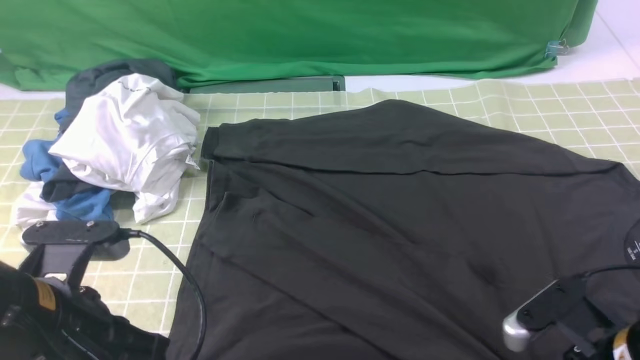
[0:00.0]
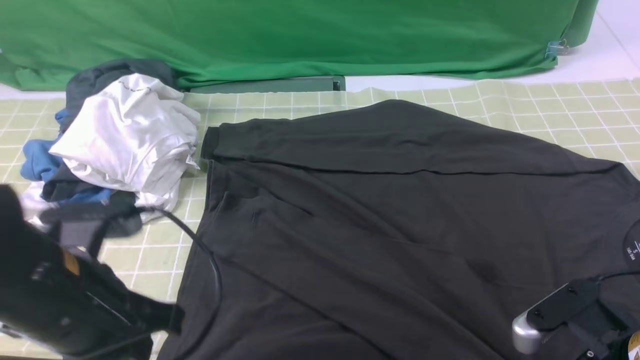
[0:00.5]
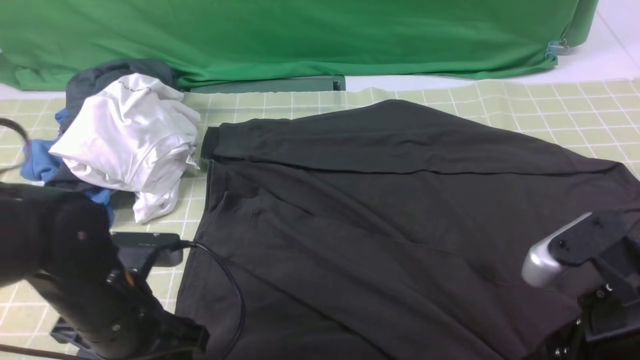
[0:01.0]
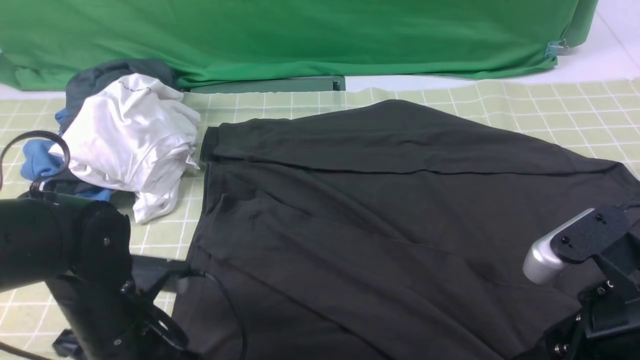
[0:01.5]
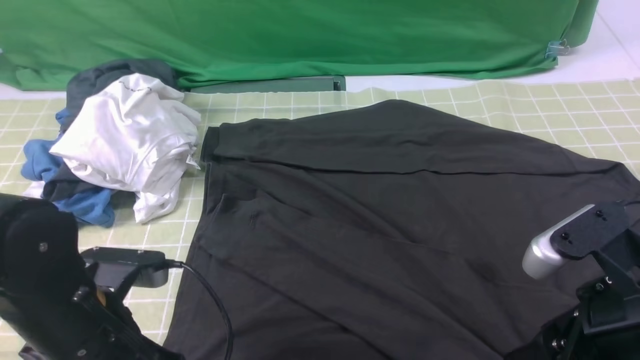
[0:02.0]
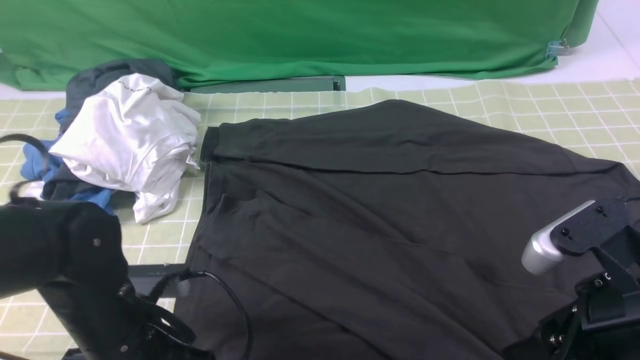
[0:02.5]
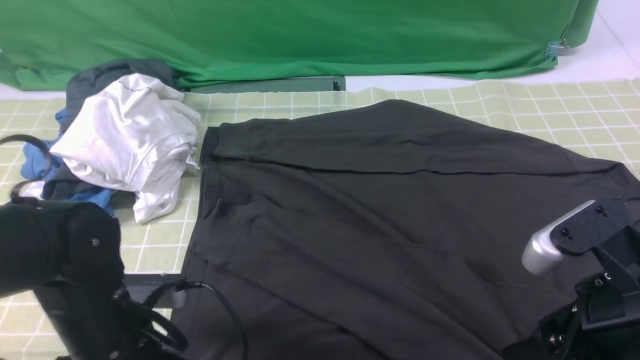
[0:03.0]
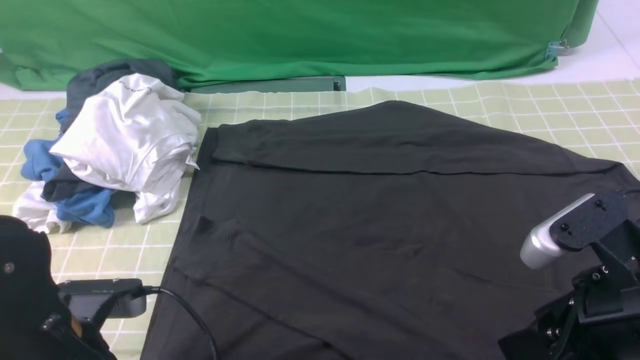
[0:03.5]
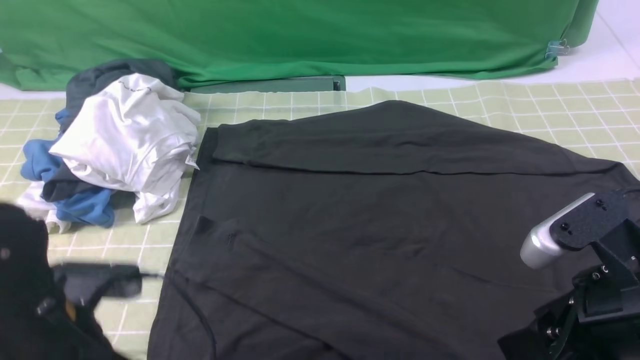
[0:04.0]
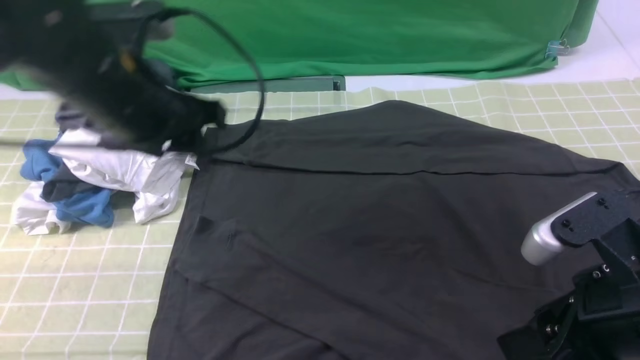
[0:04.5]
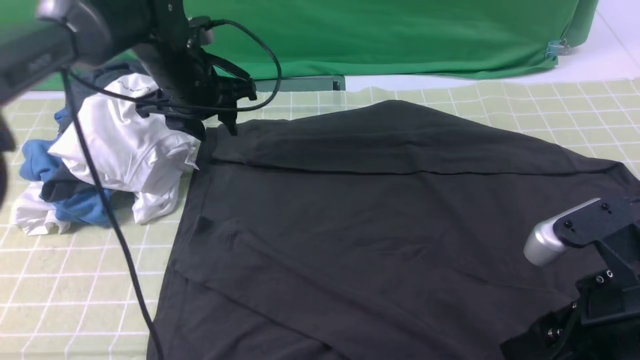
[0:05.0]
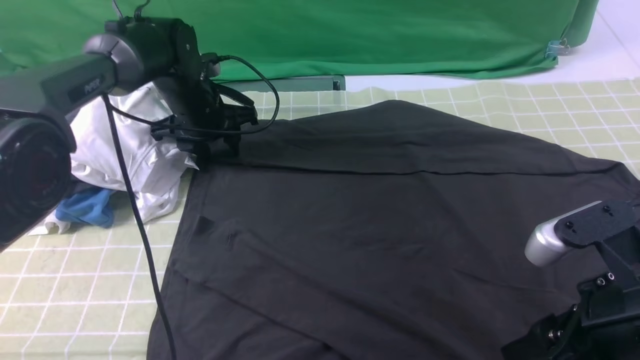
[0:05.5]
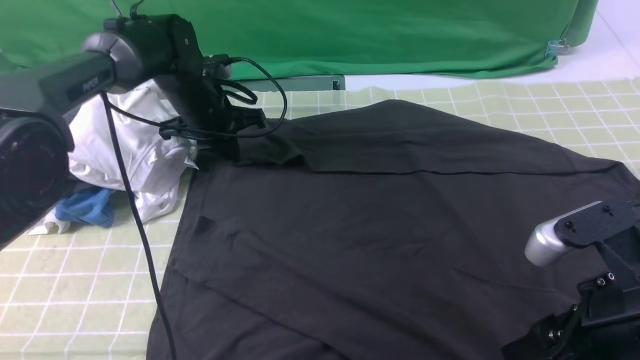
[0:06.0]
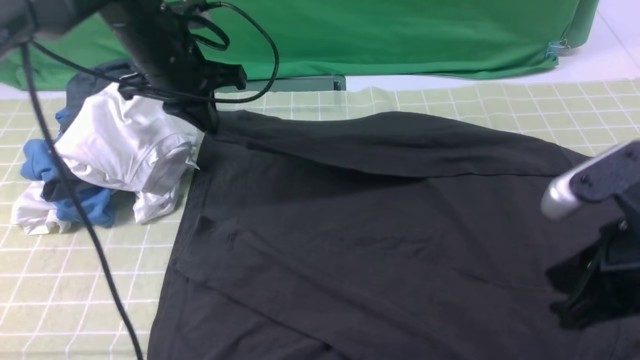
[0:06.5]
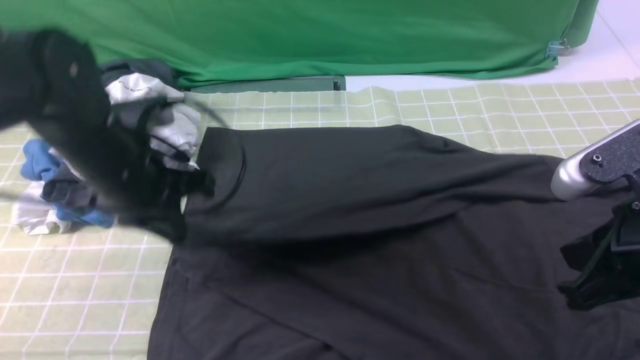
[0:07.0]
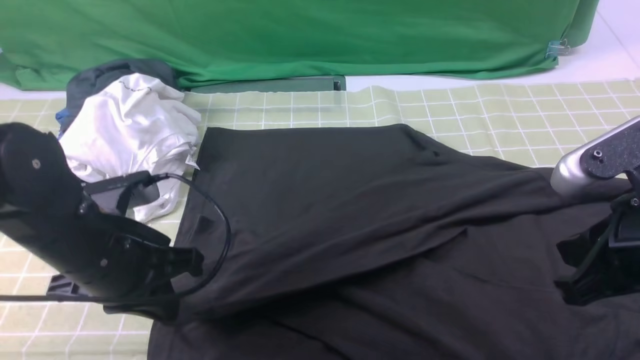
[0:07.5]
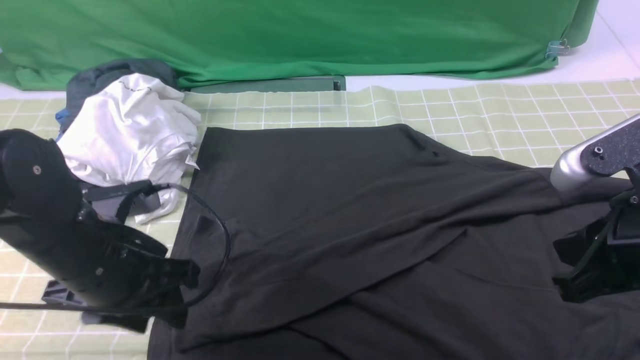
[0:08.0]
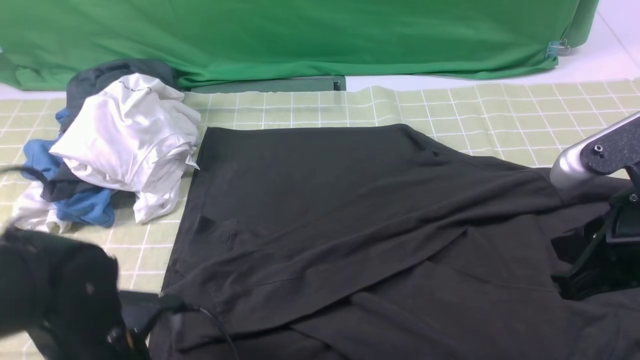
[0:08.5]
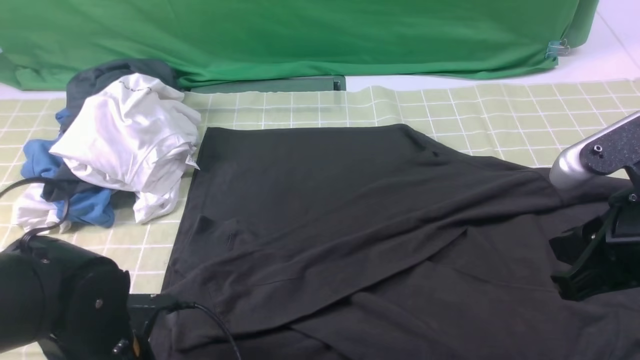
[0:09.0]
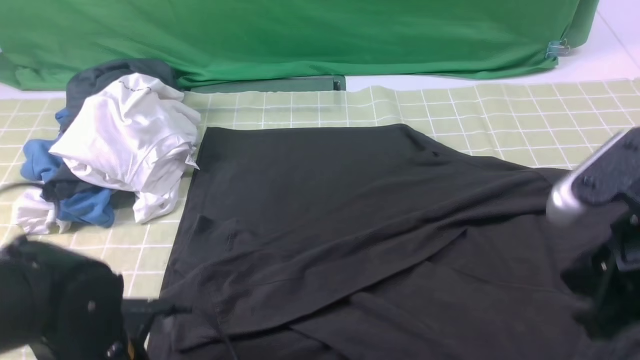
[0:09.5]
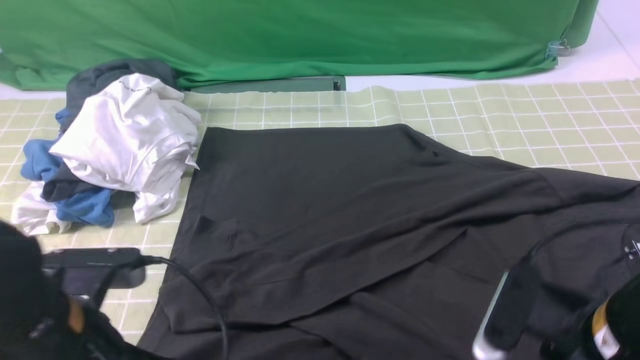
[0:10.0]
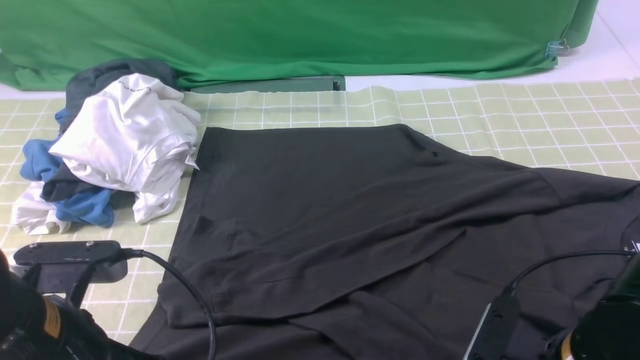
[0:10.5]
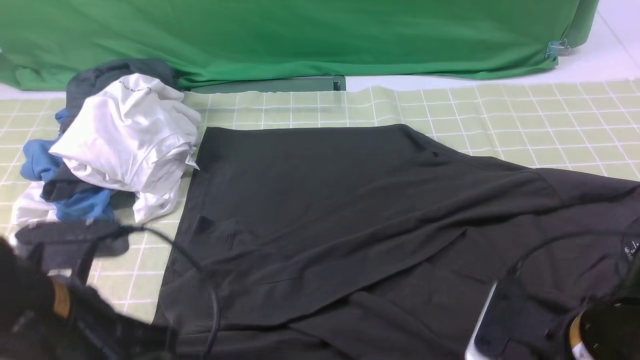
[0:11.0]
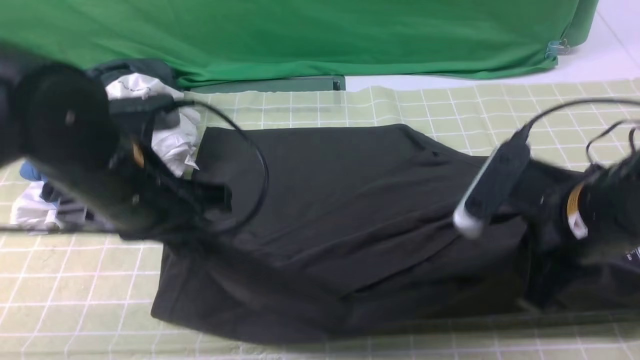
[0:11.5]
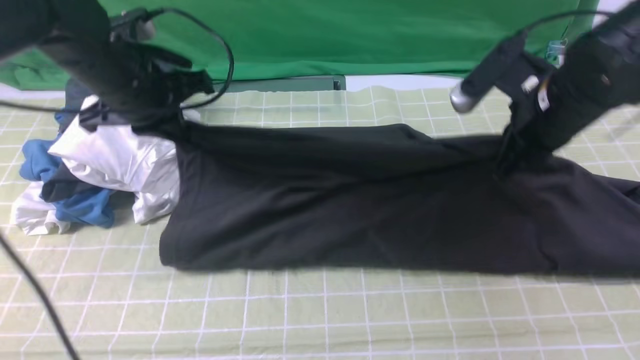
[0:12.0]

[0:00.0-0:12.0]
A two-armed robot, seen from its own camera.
Step, 0:00.0 to 0:05.5: use the left arm to clamp the cuff farthest from it.
Step, 0:06.0 to 0:08.0: use the left arm to drag and drop the cuff onto the cuff closest to the left arm.
Step, 0:08.5 to 0:10.5: use both arms simultaneously to clamp the lower edge of the clothing fabric.
0:00.0 to 0:02.0: The right gripper is displaced upward by about 10 cm, and opens up, while the left gripper moves downward, some 5 cm, and opens, then closes once more.
0:02.0 to 0:04.0: The left gripper opens its fingers.
0:04.0 to 0:06.0: The left gripper travels forward by about 30 cm, and closes.
0:06.0 to 0:08.0: The right gripper closes up; the left gripper shifts approximately 25 cm backward, and opens.
0:08.0 to 0:10.0: The right gripper goes some 5 cm downward, and opens its fingers, while the left gripper is displaced backward by roughly 10 cm, and closes its fingers.
0:10.0 to 0:12.0: The two grippers go some 25 cm forward. The right gripper closes.

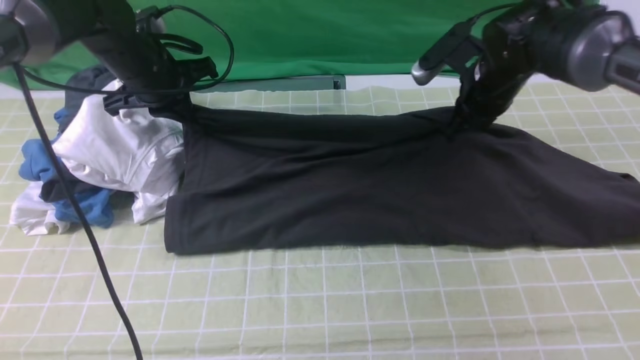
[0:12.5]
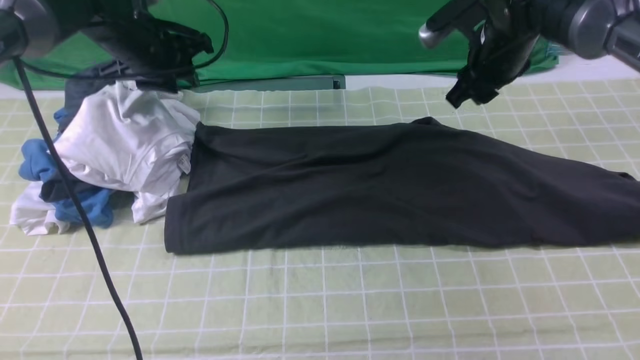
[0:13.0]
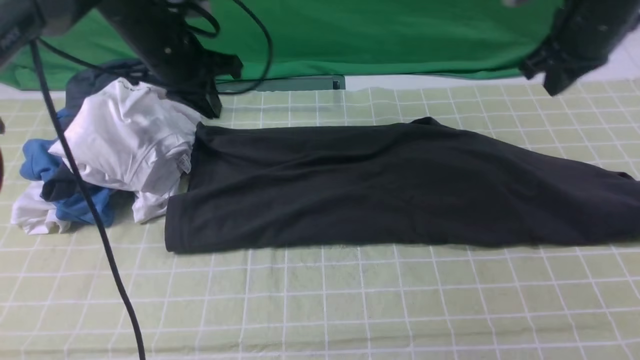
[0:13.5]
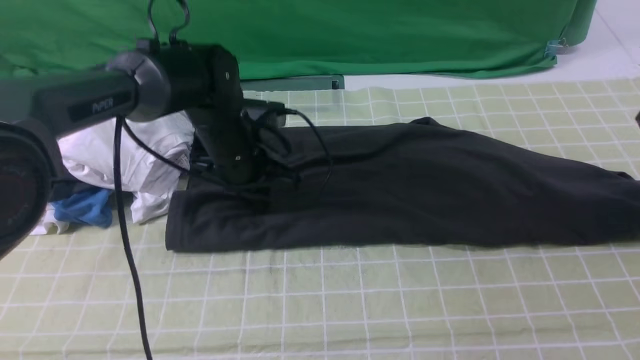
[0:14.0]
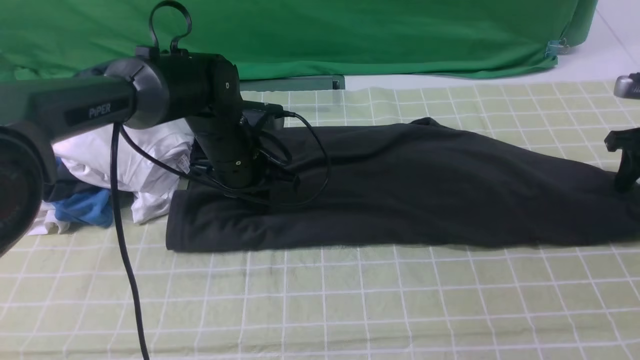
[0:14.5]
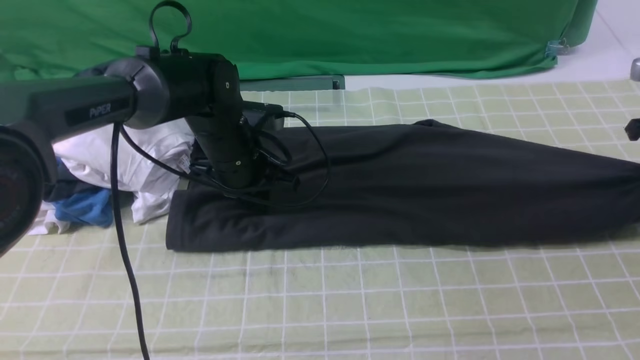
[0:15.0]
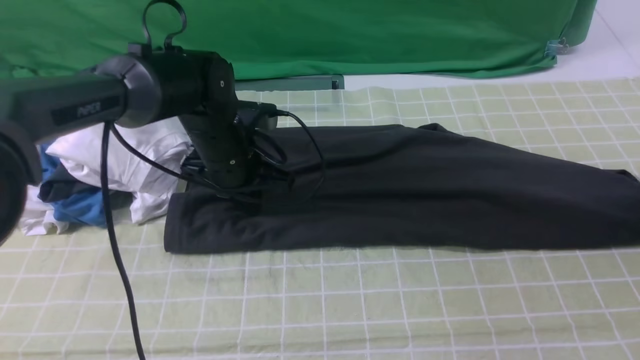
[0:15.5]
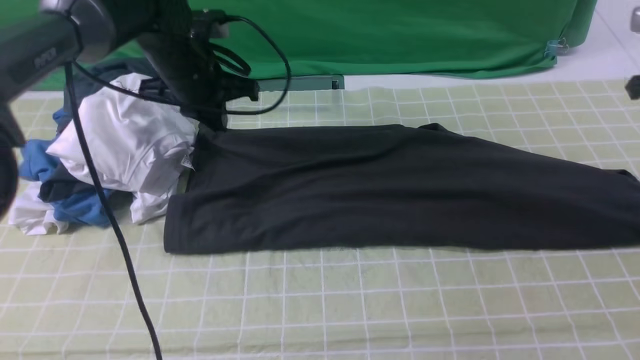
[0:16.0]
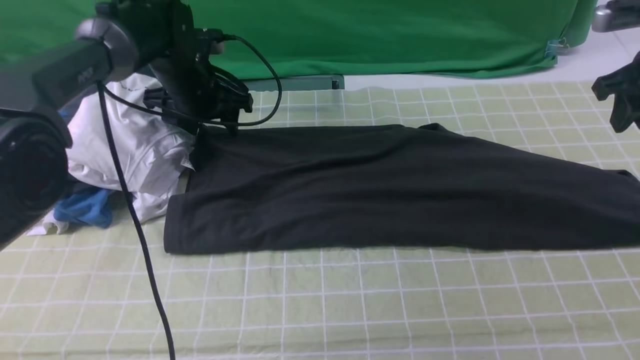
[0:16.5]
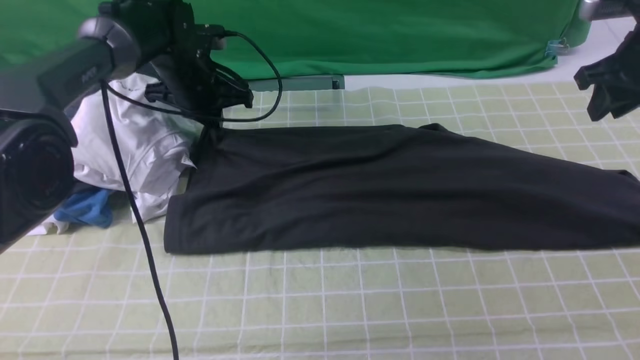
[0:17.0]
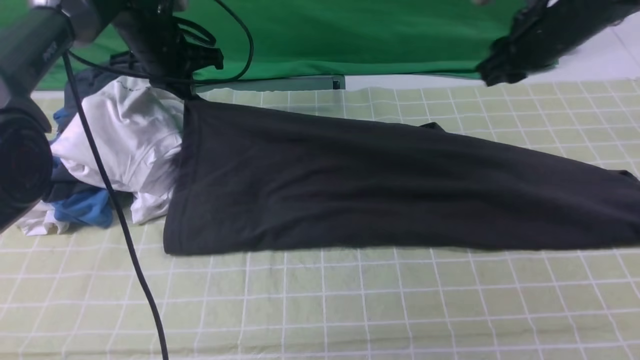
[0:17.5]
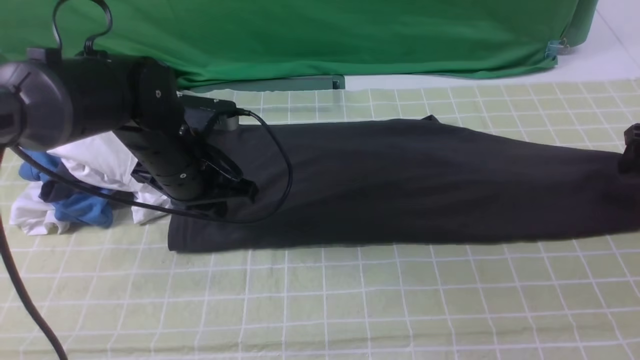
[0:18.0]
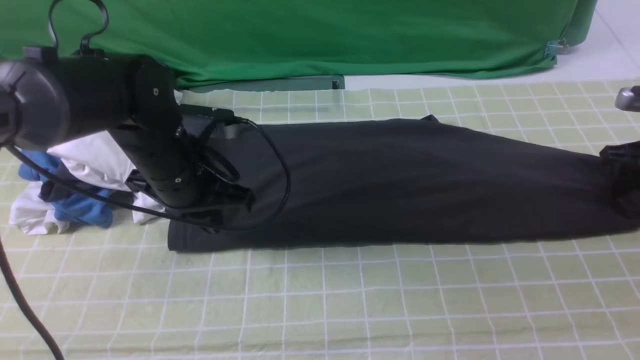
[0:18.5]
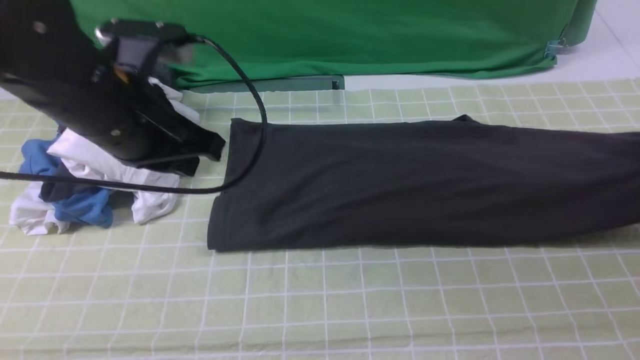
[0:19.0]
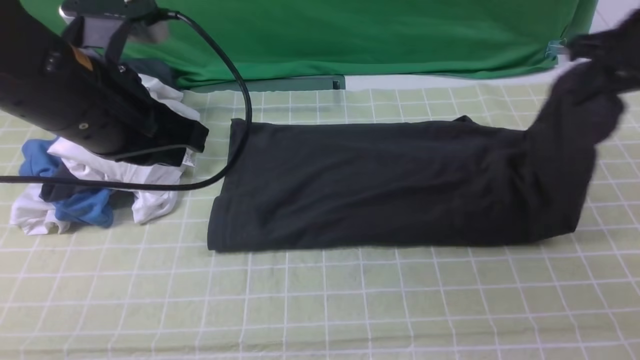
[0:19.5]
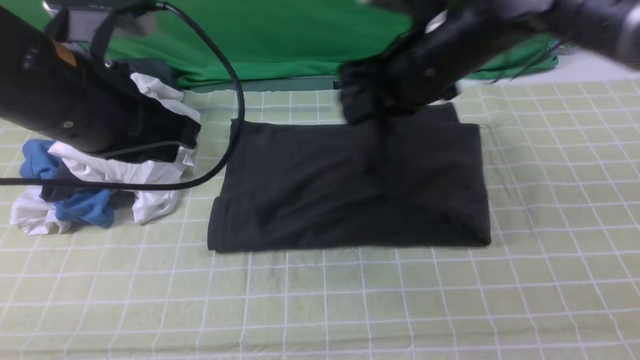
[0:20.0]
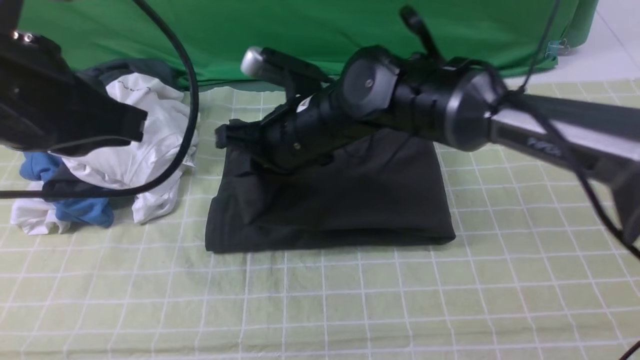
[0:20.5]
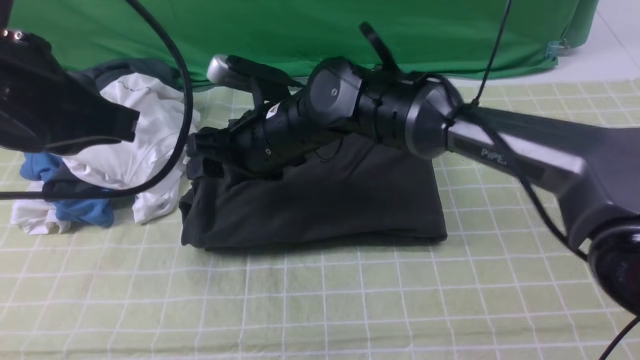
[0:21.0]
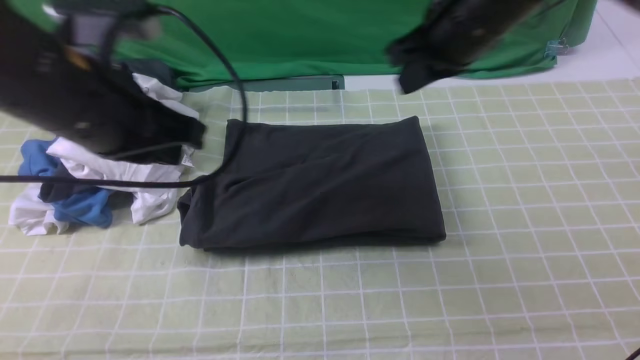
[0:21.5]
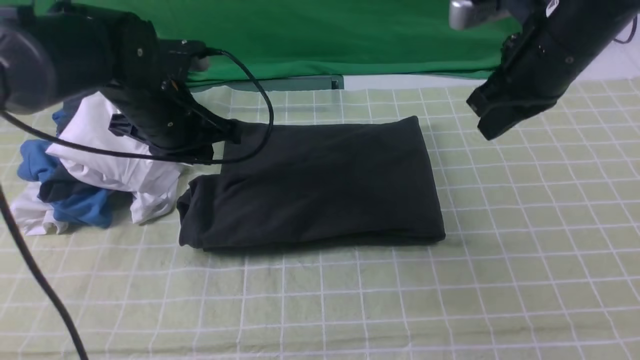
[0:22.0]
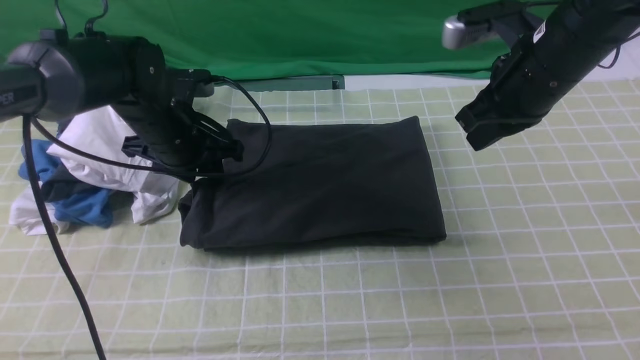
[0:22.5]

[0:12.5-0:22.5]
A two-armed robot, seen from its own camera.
Step, 0:13.5 to 0:18.5: use the right arm to clamp the right edge of the fabric.
Step, 0:19.0 to 0:21.0: use the right arm to drag the right edge of the fabric to the left and folds it over the left edge.
0:12.5 to 0:14.5: The right gripper heads to the right, covering some 25 cm; the left gripper travels to the right, downward and backward by approximately 15 cm, and opens and closes again.
0:14.5 to 0:16.5: The left gripper goes some 10 cm forward and to the left, and opens up; the right gripper is displaced upward and to the left by about 10 cm.
0:16.5 to 0:18.5: The left gripper goes approximately 15 cm backward, and closes, while the right gripper goes approximately 15 cm downward and to the right, and opens and closes again.
0:18.5 to 0:20.5: The right gripper moves to the left, roughly 50 cm. The left gripper moves upward and backward, roughly 20 cm.
0:20.5 to 0:22.5: The right gripper shifts some 20 cm to the right, and opens, then closes again, while the left gripper is displaced downward and forward by some 25 cm, and opens.
